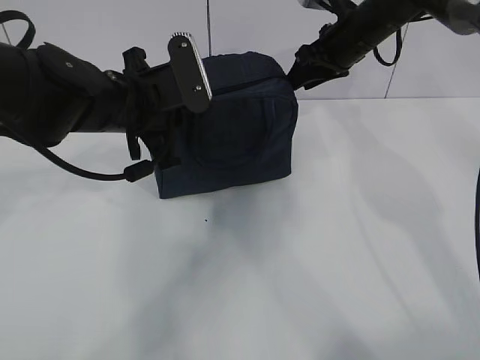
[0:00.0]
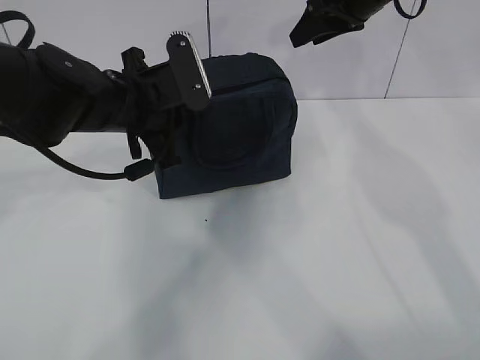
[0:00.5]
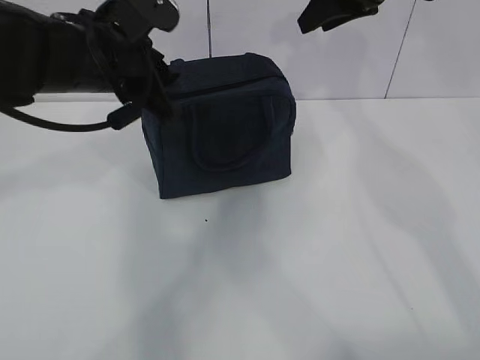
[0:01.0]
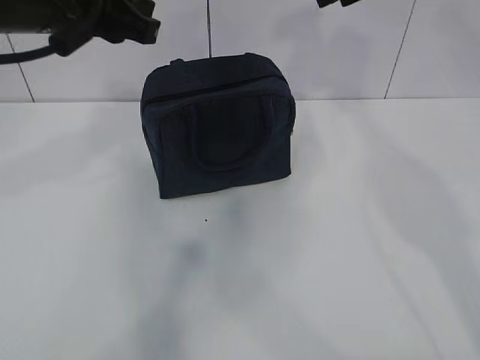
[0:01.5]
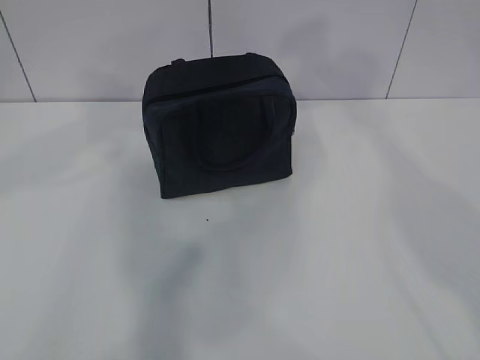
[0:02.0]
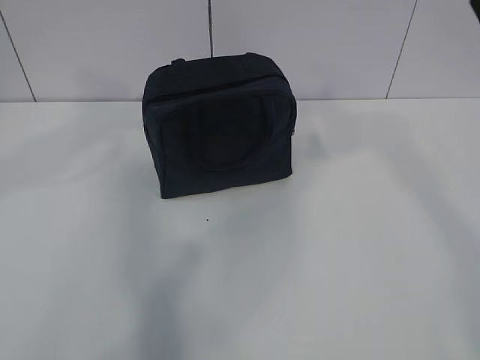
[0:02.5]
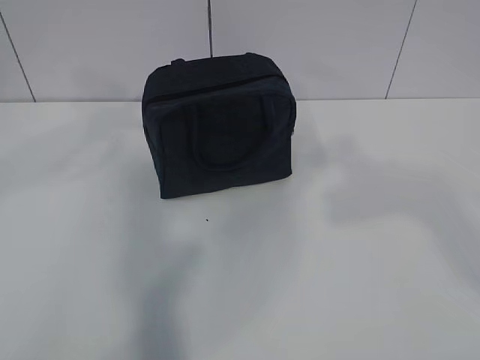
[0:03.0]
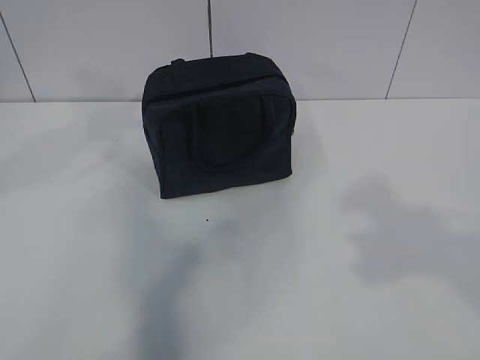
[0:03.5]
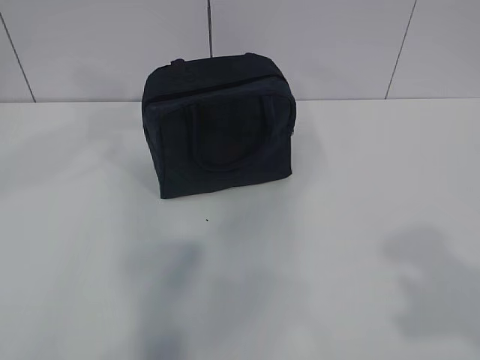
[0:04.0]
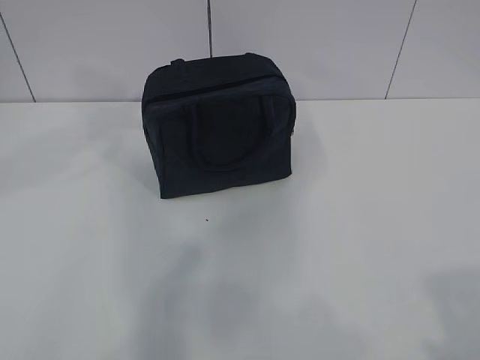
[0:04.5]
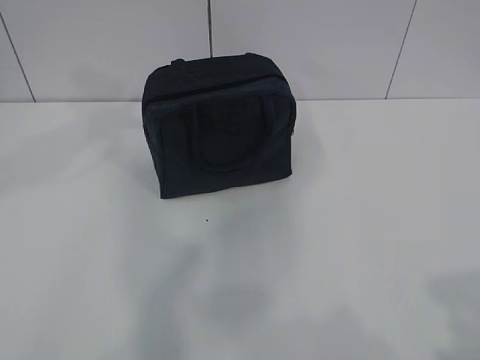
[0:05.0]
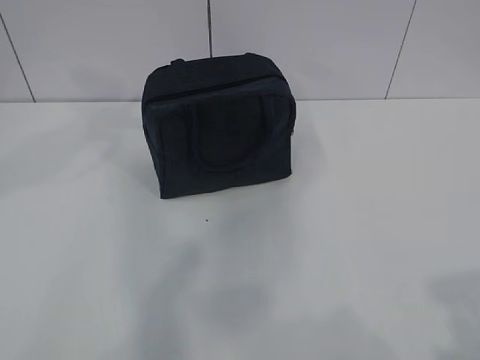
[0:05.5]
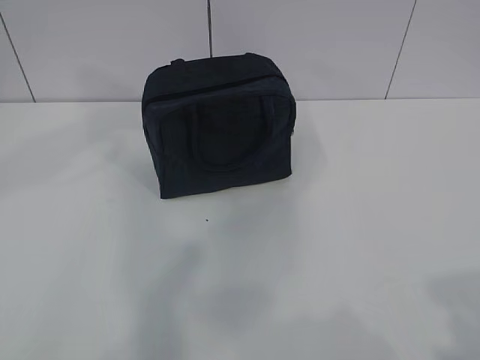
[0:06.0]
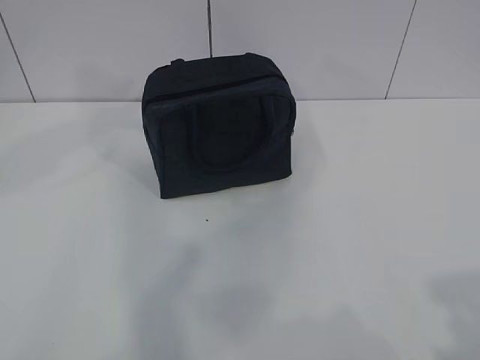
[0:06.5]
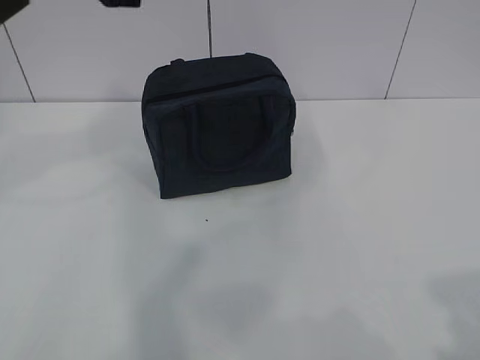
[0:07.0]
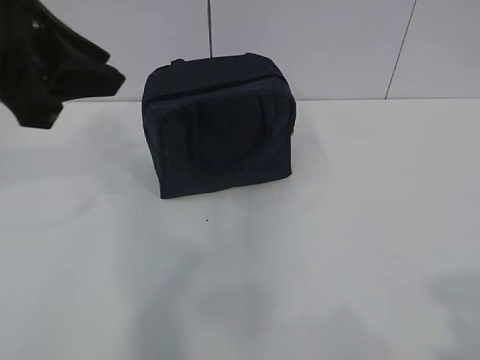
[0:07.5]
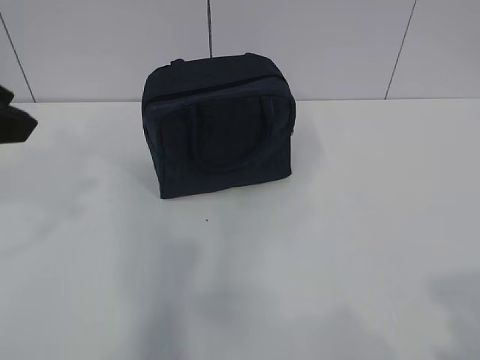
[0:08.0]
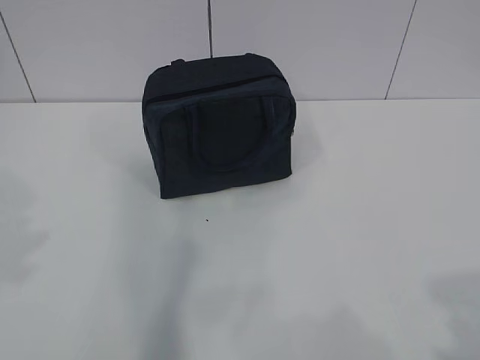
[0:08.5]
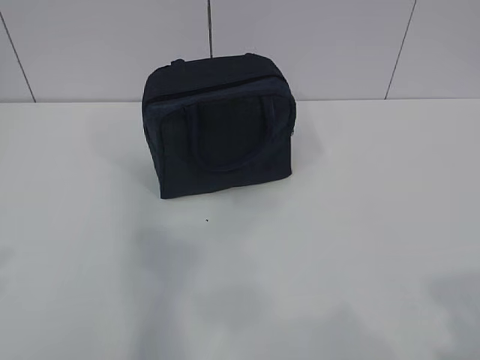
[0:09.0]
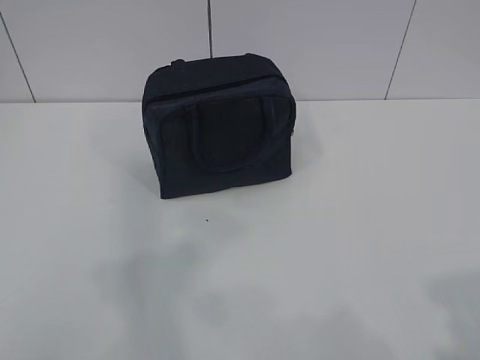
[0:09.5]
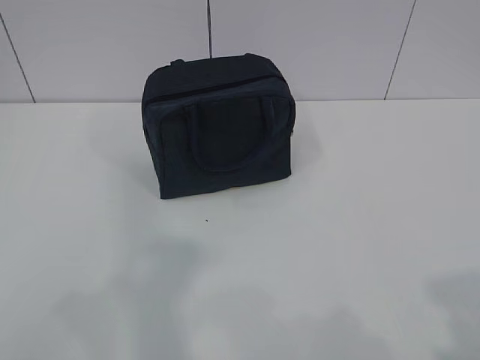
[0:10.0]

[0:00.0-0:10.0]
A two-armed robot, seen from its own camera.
0:00.0 to 0:02.0: Both grippers move upward and backward, approximately 20 cm. The left gripper opens up.
0:06.0 to 0:08.0: The left gripper goes approximately 10 cm backward and to the left.
0:08.0 to 0:10.0: The left gripper heads backward and to the left, covering approximately 20 cm.
